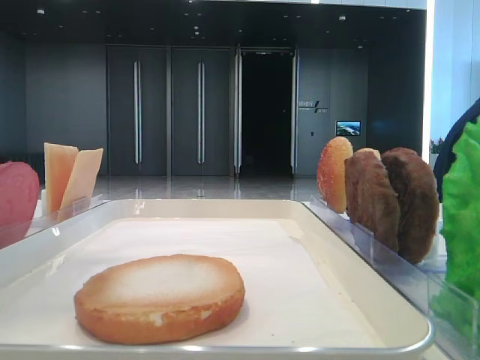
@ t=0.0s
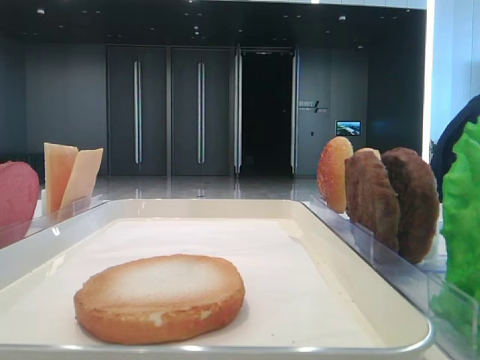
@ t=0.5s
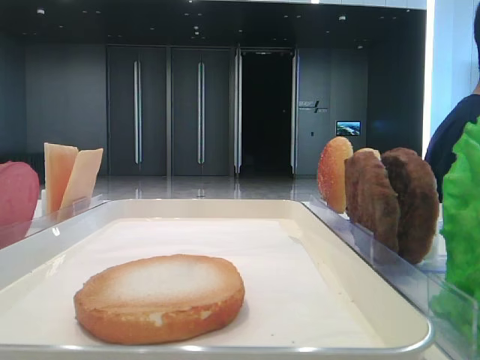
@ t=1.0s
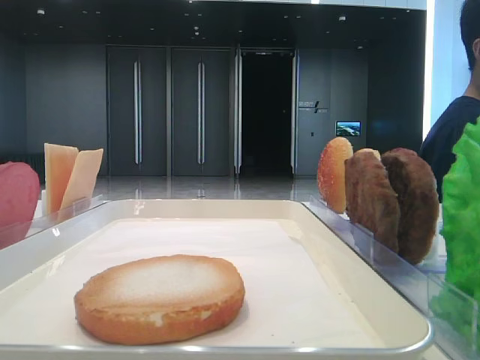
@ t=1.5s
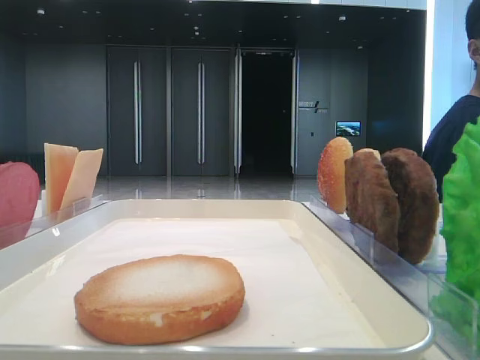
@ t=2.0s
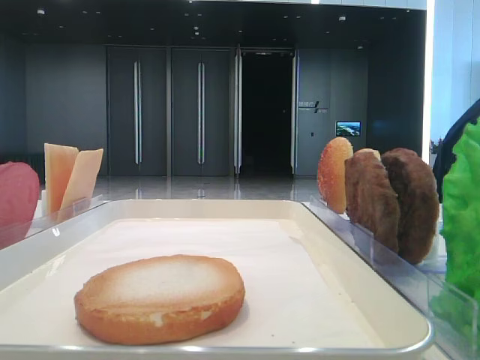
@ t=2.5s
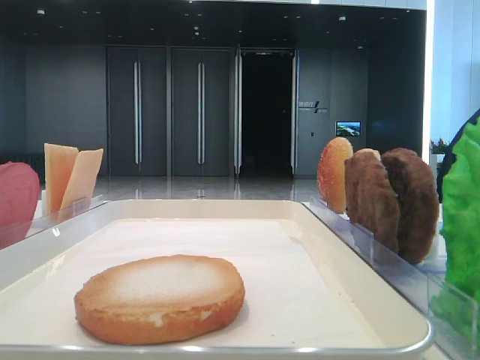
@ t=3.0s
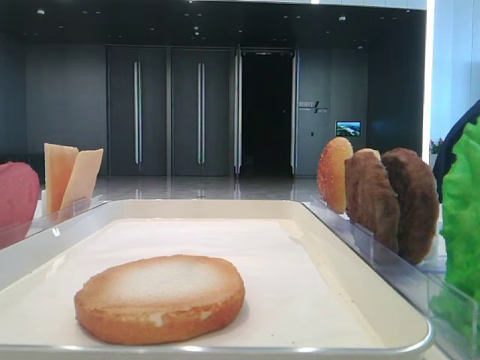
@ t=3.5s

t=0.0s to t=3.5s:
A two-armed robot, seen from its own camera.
t=0.0s to t=2.0s: The left gripper moves backward and to the left, some 20 cm.
